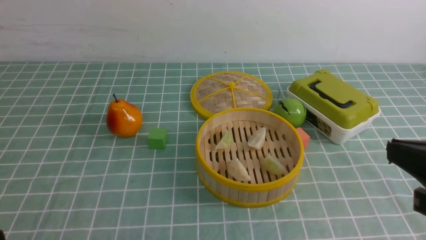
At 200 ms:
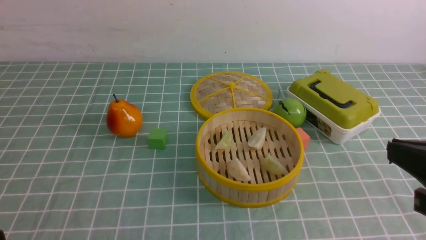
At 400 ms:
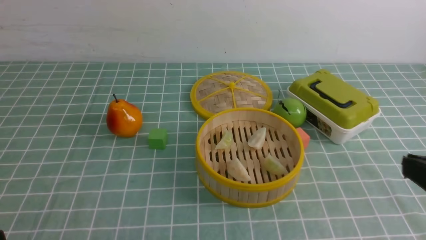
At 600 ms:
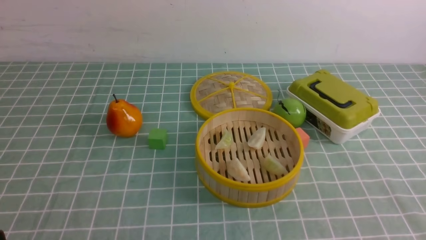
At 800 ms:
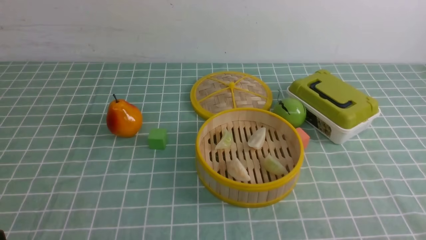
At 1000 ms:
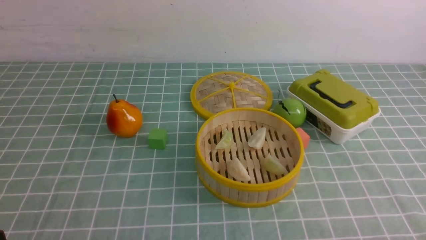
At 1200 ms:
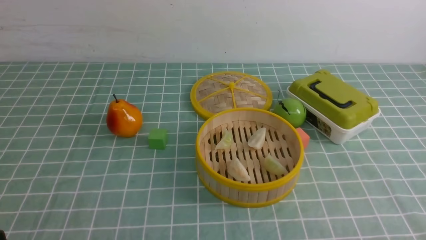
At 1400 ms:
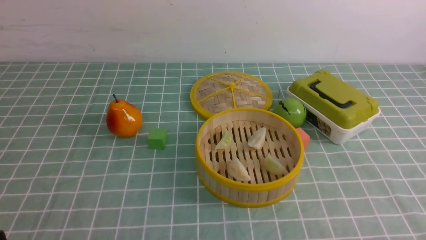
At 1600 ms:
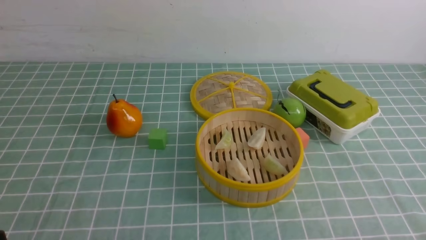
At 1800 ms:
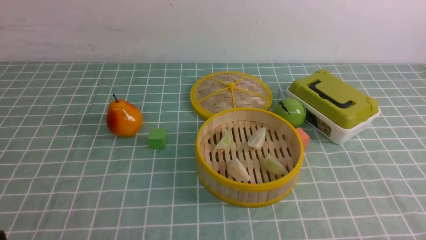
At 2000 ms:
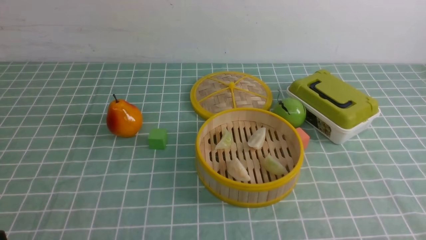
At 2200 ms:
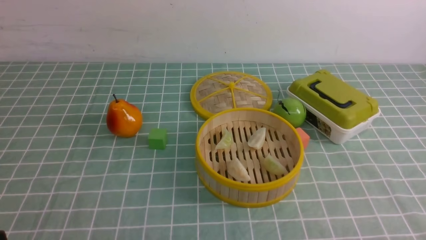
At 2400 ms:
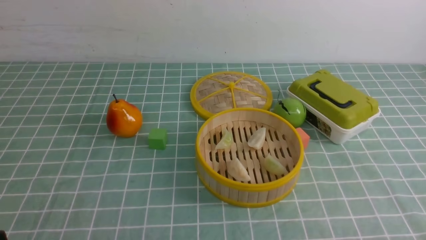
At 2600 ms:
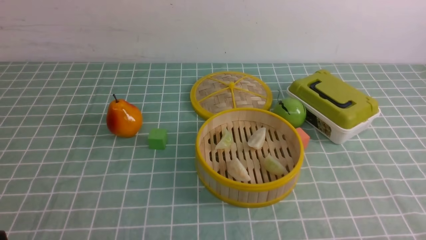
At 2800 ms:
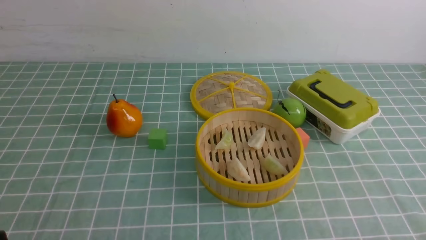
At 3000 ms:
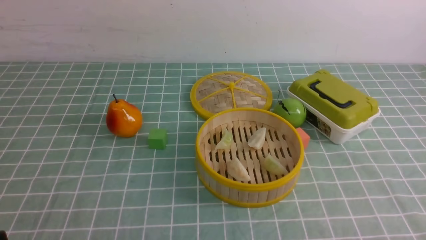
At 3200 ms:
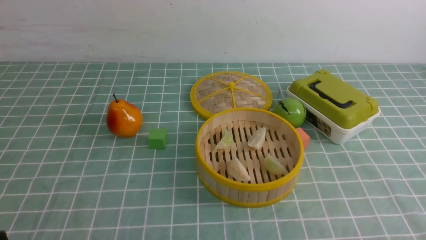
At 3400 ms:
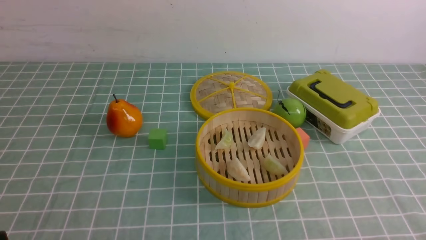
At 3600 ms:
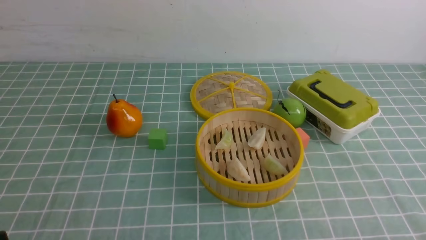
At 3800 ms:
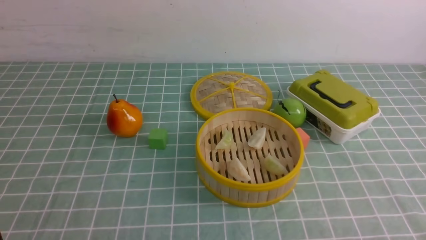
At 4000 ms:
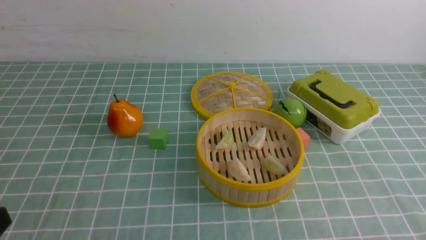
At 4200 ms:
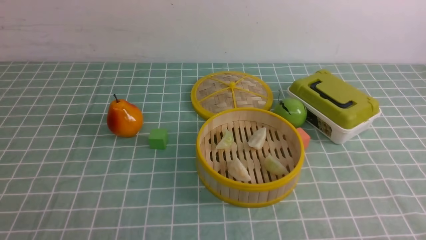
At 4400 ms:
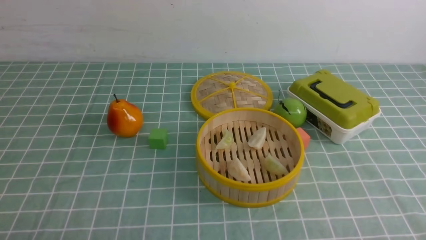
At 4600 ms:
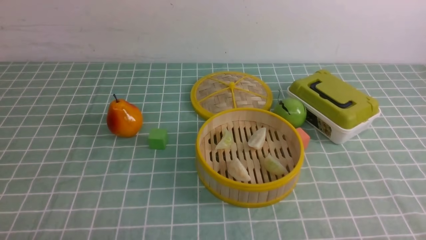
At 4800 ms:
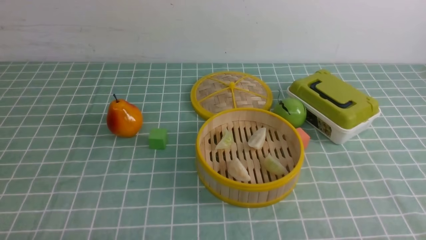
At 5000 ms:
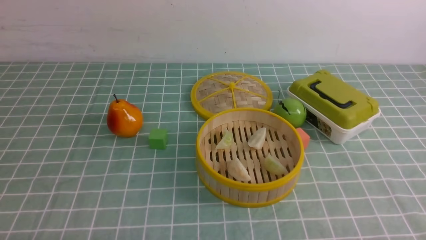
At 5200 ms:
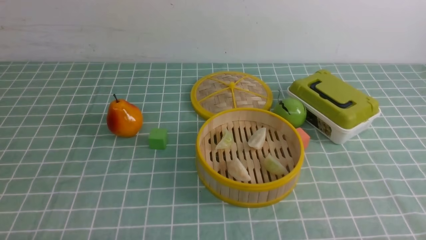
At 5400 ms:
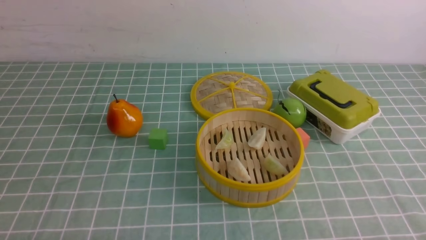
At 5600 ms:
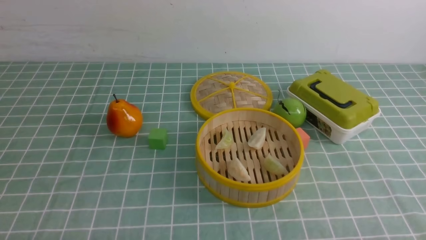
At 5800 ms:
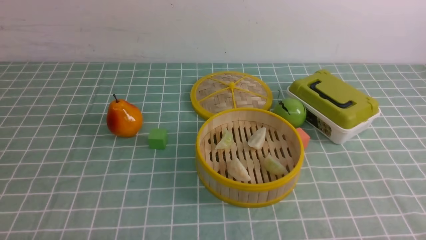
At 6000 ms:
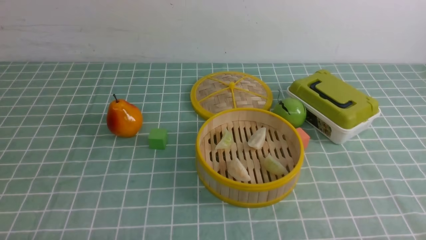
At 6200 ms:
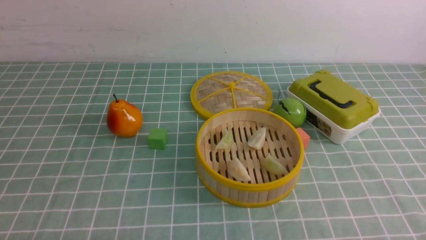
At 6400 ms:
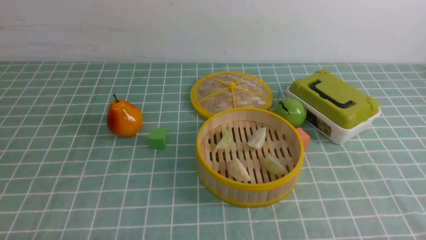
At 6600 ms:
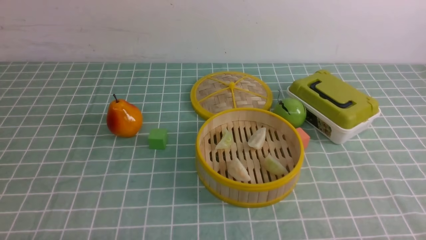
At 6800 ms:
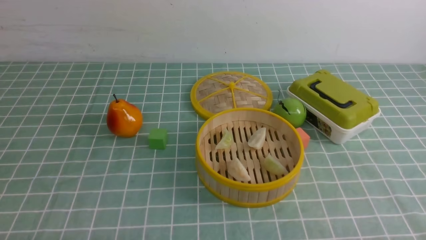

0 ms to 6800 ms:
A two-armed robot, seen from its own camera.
Task of the whole recording: put the dumplings into the steamer on the table with the blue tablecloth.
0 ms to 1400 ms: The right gripper goes approximately 20 cm downward and backward.
1400 ms to 2800 ms: The two grippers keep their place.
5400 ms to 6800 ms: The two grippers keep their place.

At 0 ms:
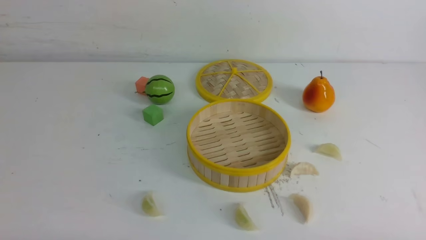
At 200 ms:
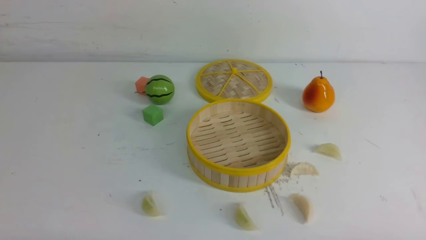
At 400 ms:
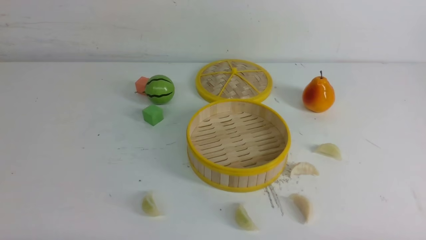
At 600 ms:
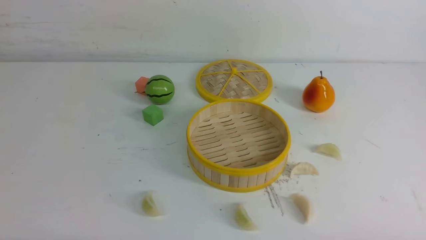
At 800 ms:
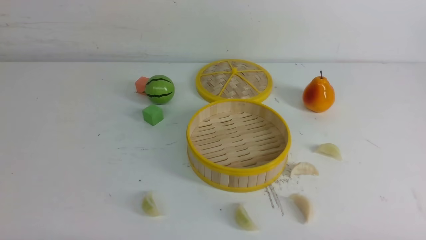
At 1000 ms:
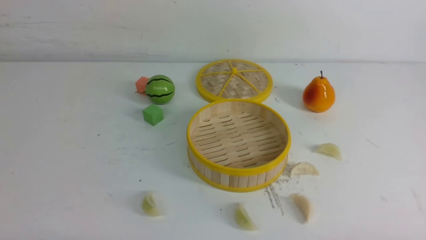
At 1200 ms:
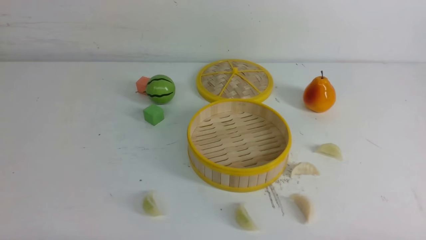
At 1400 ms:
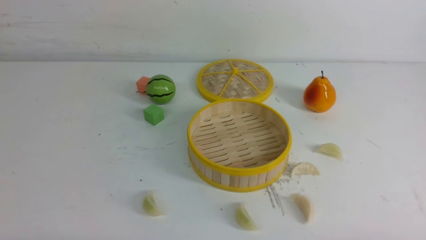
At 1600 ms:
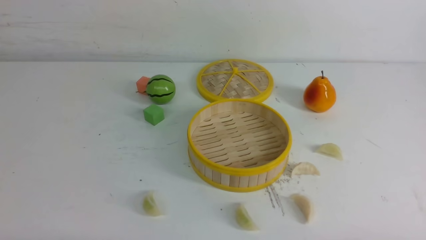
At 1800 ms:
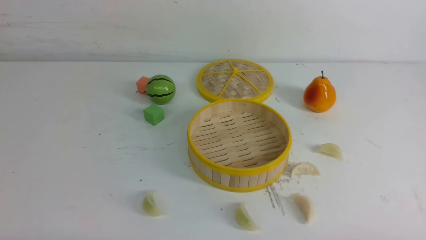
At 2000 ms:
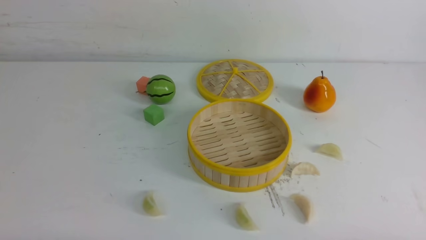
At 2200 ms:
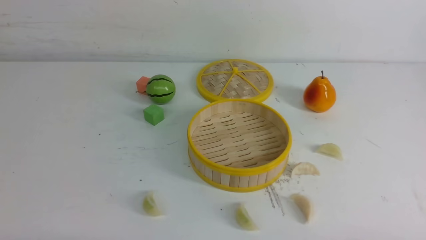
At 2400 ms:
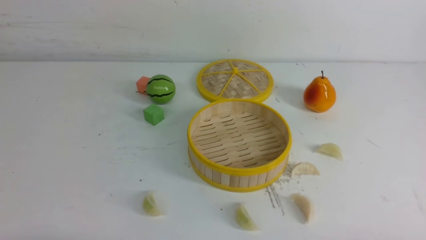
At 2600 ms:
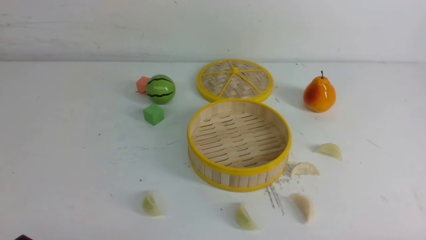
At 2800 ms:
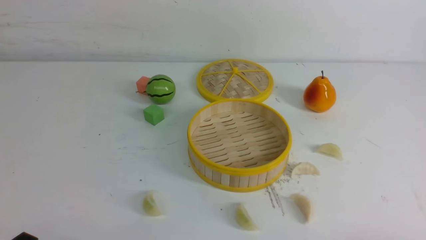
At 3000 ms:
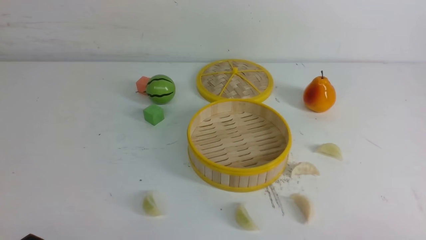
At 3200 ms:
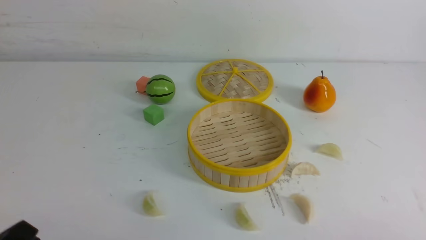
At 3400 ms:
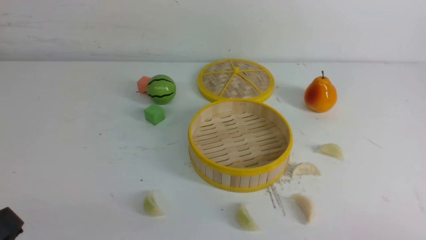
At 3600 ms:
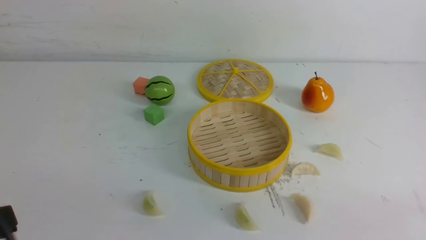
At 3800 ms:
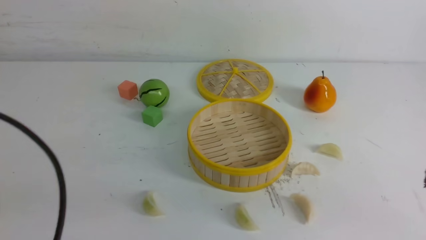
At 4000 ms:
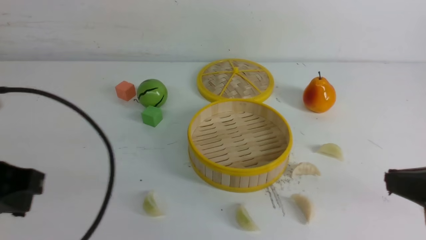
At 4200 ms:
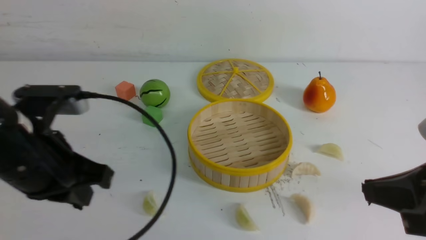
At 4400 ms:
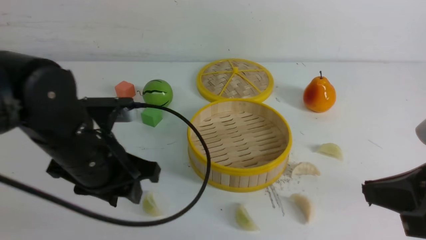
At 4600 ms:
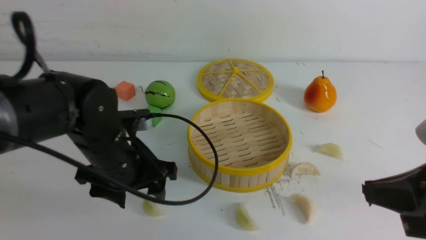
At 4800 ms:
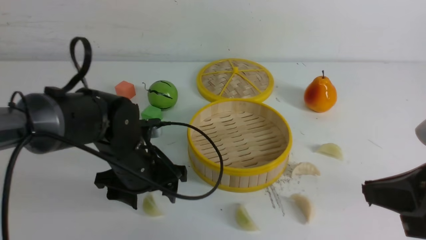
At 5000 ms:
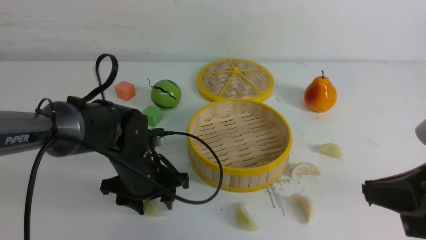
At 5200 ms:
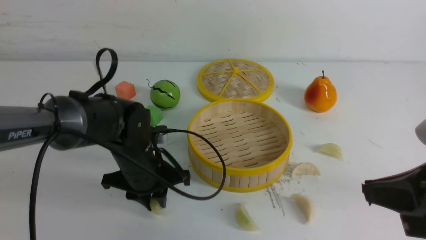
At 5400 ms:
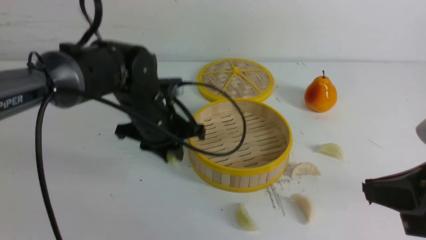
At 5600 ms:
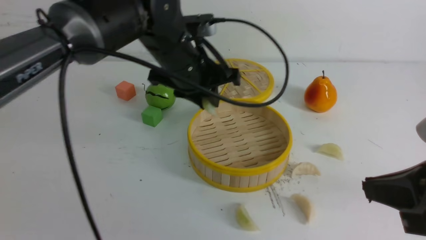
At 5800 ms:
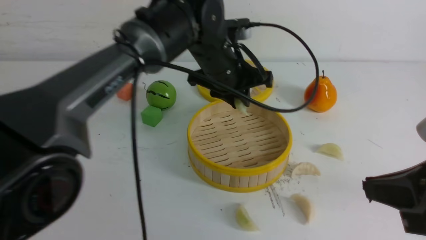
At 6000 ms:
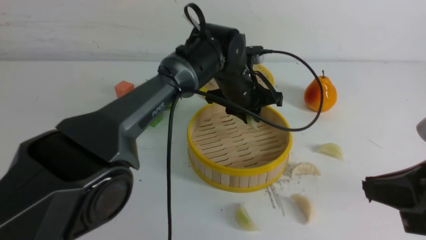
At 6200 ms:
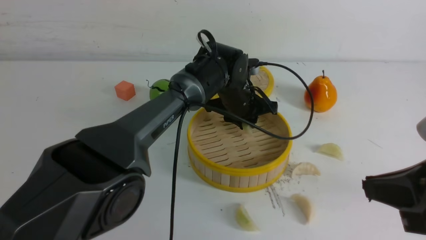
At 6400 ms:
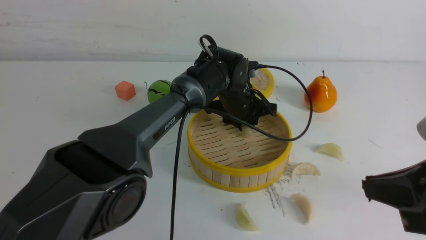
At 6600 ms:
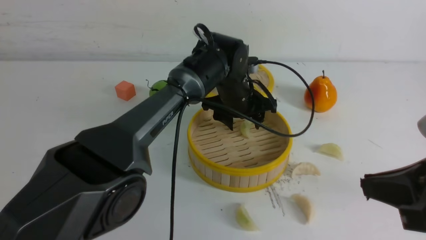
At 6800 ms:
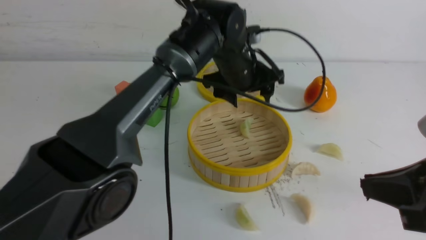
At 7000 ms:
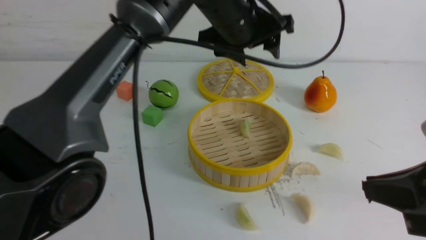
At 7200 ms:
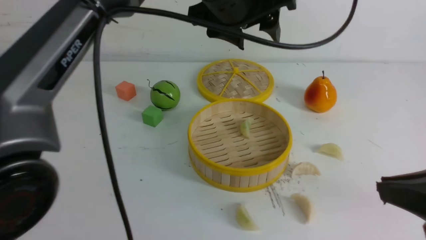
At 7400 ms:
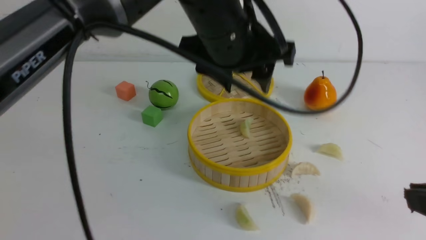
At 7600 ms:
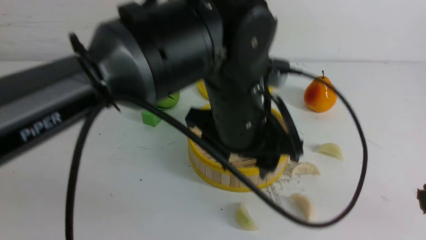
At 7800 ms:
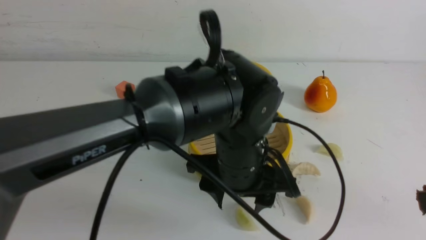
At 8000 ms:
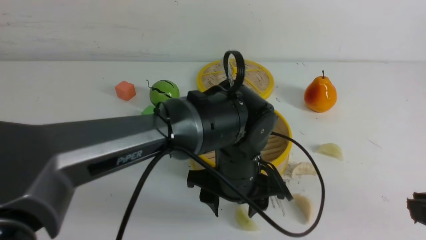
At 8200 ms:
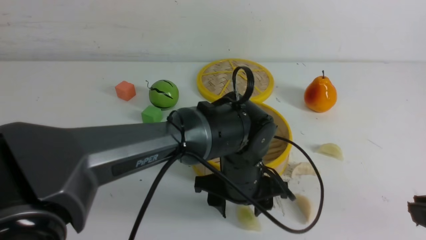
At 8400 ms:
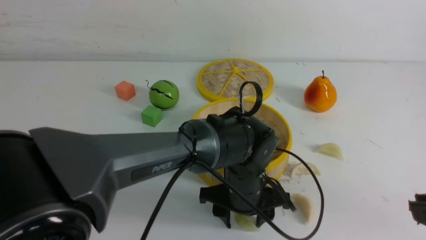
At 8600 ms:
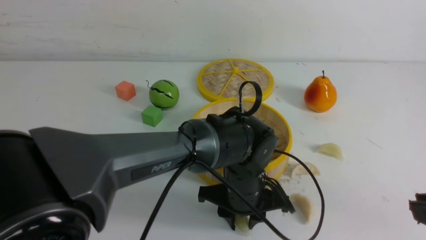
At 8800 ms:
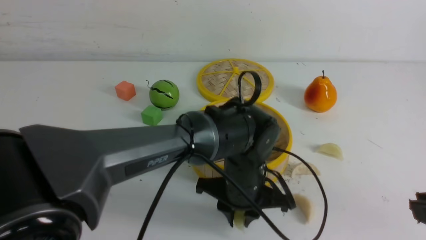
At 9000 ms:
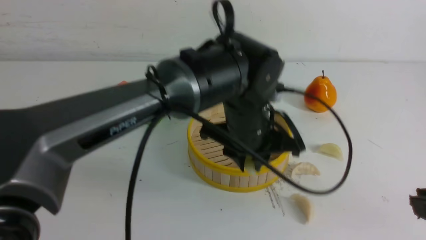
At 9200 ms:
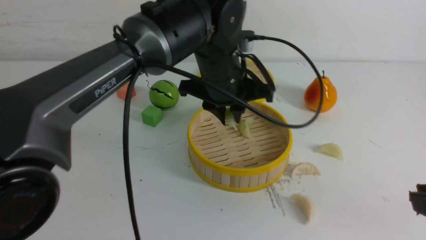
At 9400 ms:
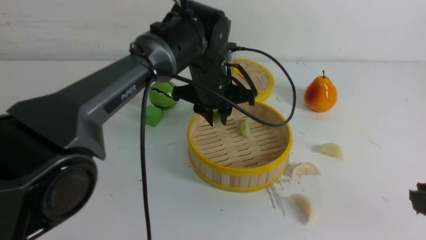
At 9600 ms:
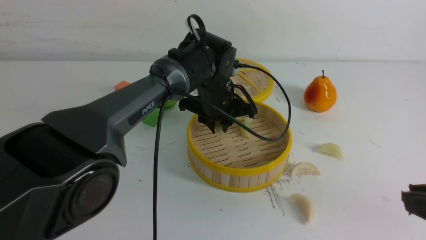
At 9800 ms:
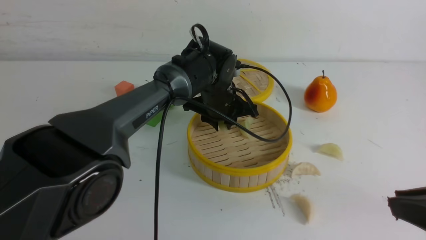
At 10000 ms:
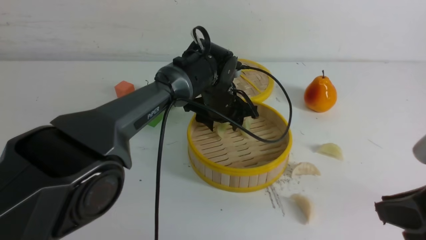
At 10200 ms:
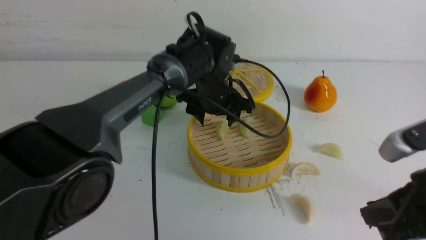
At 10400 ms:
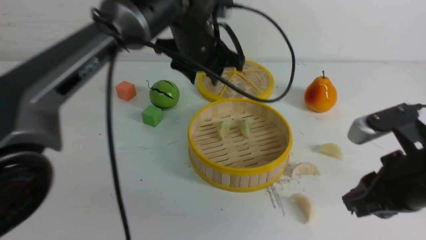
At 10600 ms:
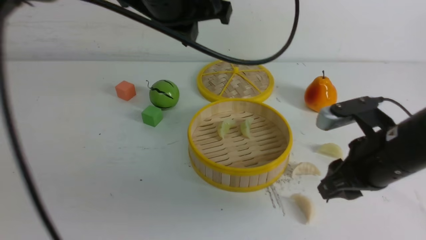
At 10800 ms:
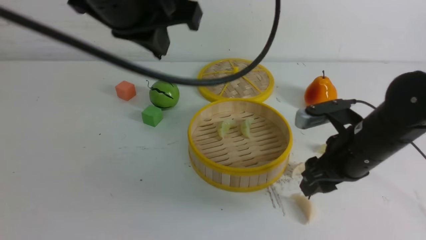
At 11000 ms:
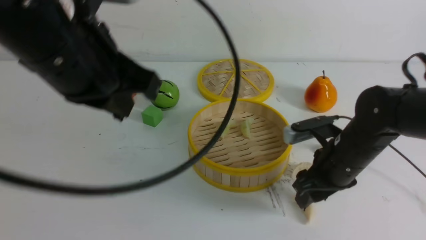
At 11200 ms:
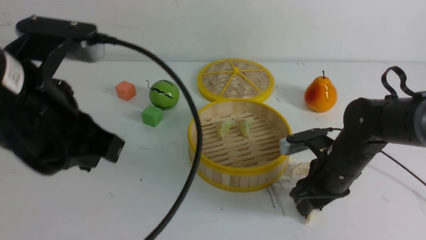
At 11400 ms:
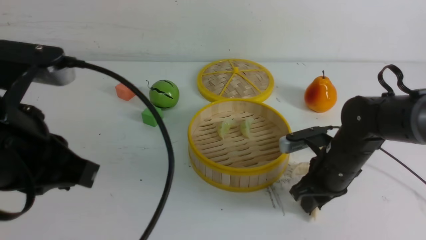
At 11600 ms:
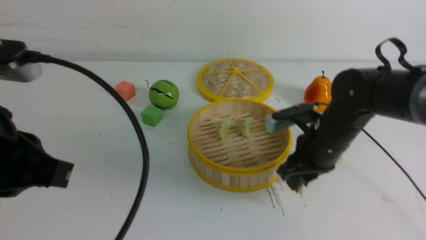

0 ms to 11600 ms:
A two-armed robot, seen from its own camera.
Task of the whole recording: put the dumplings into the steamer on the white table.
Step, 0 ms to 5200 ms: use the left arm to grab a dumpling.
Step, 5400 ms to 6400 ms: use the left arm to put the dumpling into the steamer.
Step, 6600 ms to 8800 ms: use the left arm to grab a dumpling.
Step, 9000 ms to 9800 ms: use the left arm to put the dumpling into the steamer.
Step, 10000 ms to 11400 ms: use the right arm to grab a dumpling.
2800 ms to 4400 ms: The left gripper travels forward, upward and to the right by approximately 25 cm, and closes, then reopens. Meanwhile the right gripper is displaced upward and forward by approximately 15 cm, and closes.
4400 ms to 5800 ms: The left gripper is displaced forward and to the right by some 25 cm, and opens, then closes once more.
5800 ms to 7200 ms: The left gripper heads upward, covering about 10 cm, and opens up.
7200 ms to 8800 ms: The left gripper is displaced downward by approximately 20 cm, and closes up.
8800 ms to 10200 ms: The left gripper shifts some 15 cm forward, and opens. The right gripper shifts roughly 5 cm forward.
10200 ms to 11600 ms: The left gripper heads backward, to the left and upward, covering approximately 35 cm, and closes its fingers. The right gripper heads forward and downward, covering about 20 cm, and opens, then closes once more.